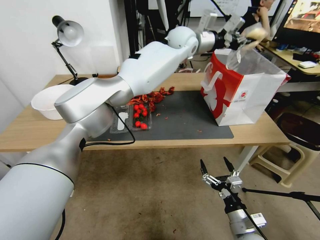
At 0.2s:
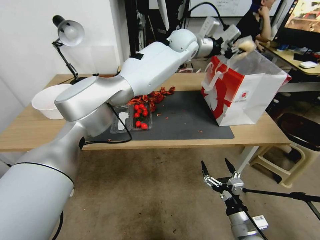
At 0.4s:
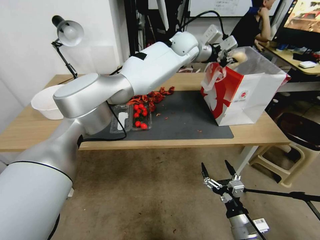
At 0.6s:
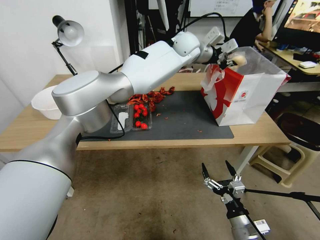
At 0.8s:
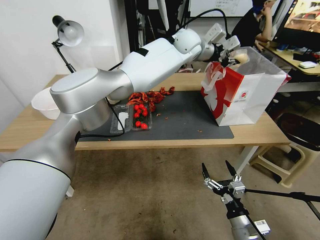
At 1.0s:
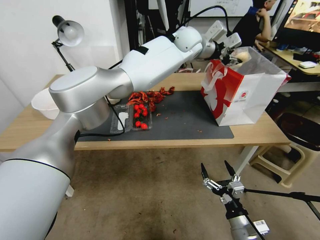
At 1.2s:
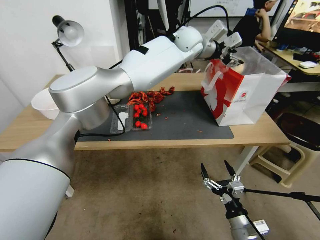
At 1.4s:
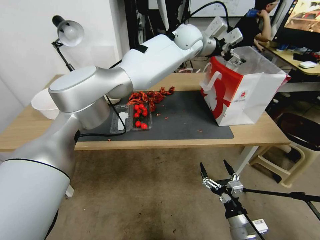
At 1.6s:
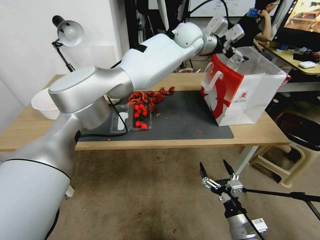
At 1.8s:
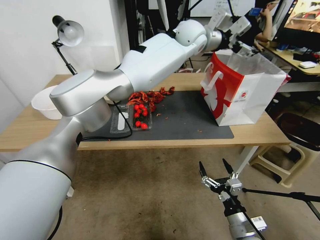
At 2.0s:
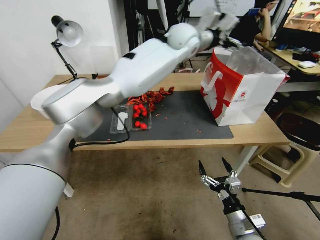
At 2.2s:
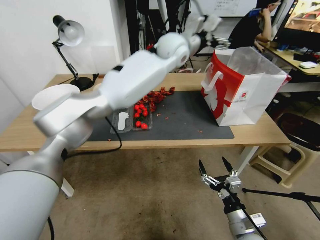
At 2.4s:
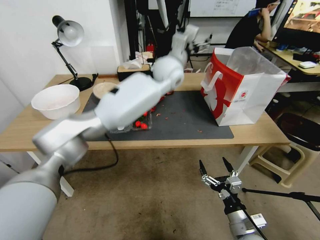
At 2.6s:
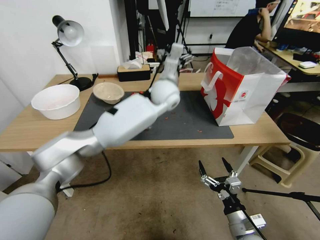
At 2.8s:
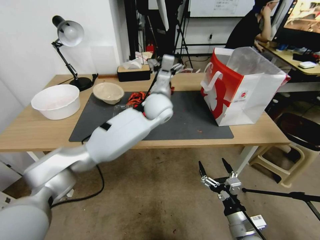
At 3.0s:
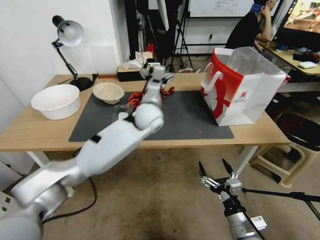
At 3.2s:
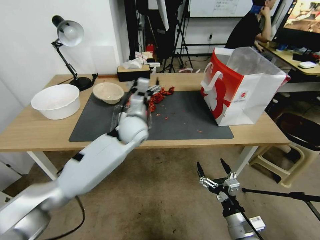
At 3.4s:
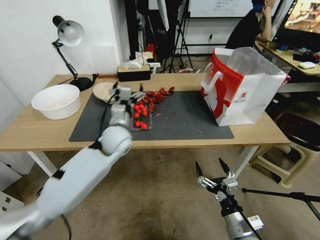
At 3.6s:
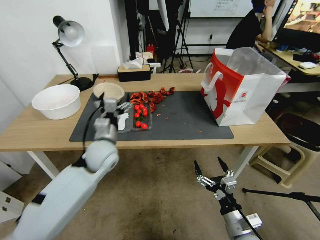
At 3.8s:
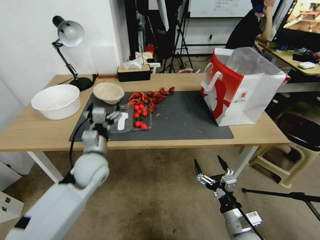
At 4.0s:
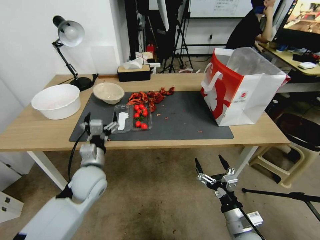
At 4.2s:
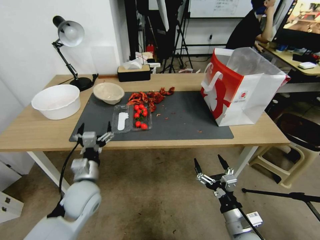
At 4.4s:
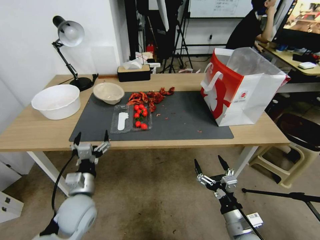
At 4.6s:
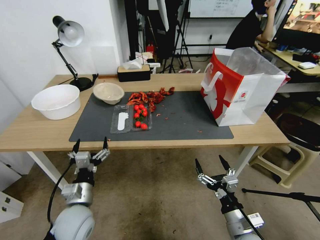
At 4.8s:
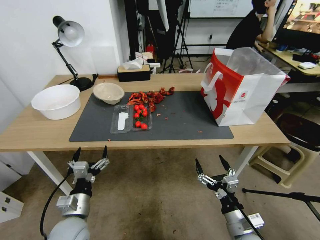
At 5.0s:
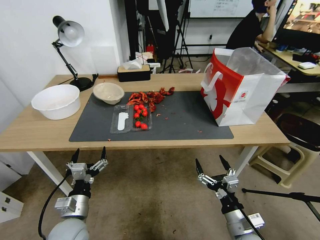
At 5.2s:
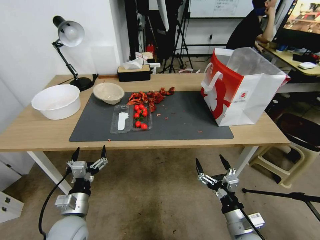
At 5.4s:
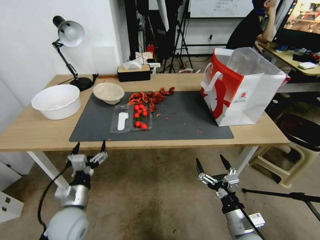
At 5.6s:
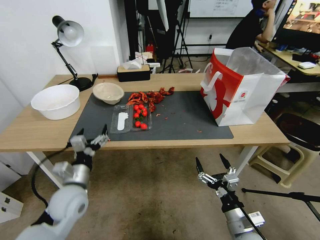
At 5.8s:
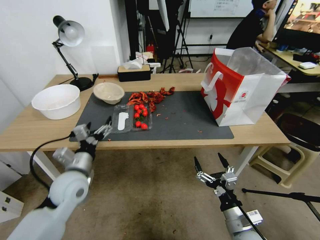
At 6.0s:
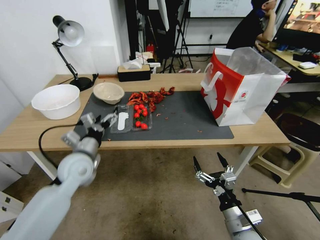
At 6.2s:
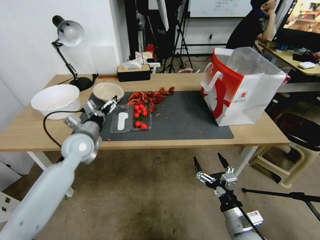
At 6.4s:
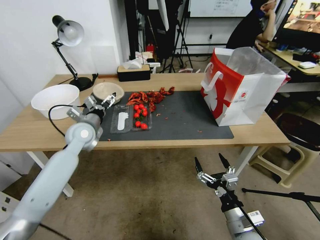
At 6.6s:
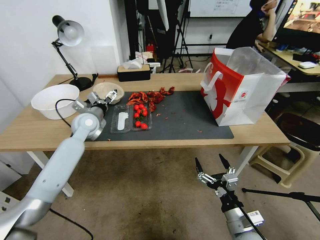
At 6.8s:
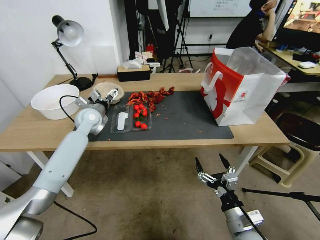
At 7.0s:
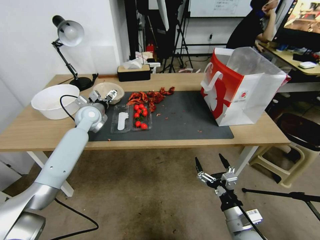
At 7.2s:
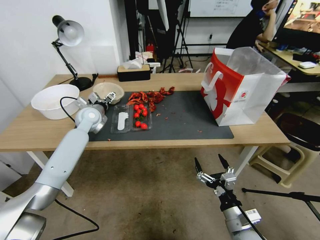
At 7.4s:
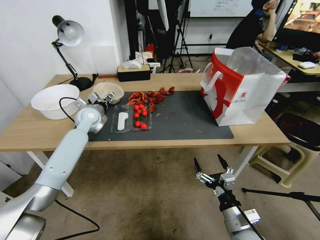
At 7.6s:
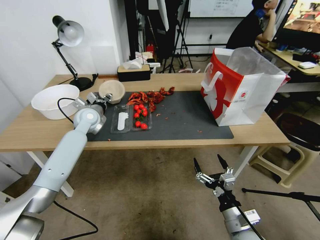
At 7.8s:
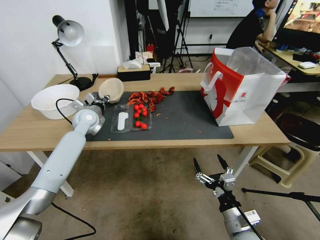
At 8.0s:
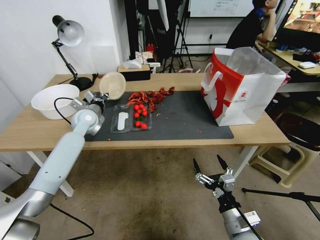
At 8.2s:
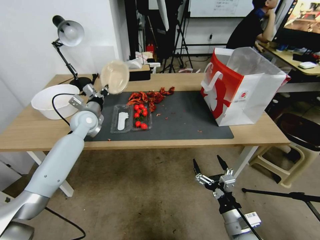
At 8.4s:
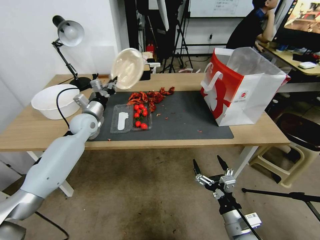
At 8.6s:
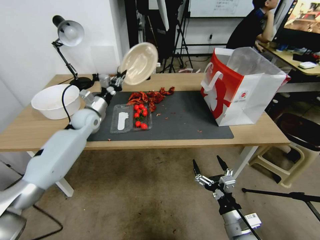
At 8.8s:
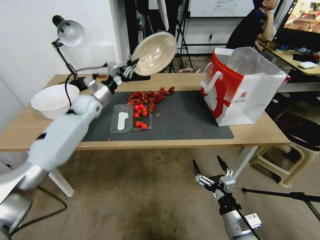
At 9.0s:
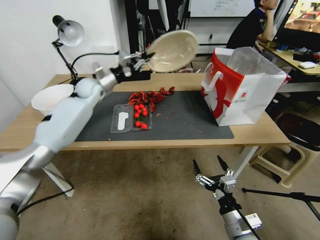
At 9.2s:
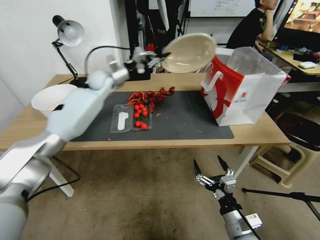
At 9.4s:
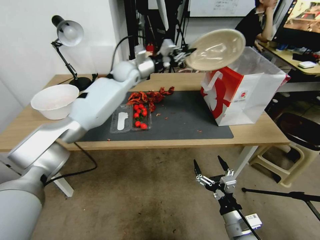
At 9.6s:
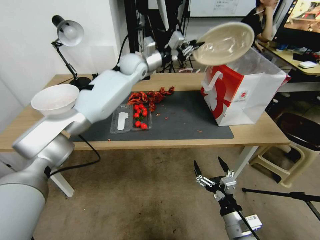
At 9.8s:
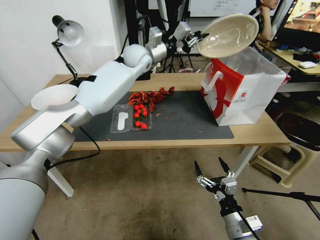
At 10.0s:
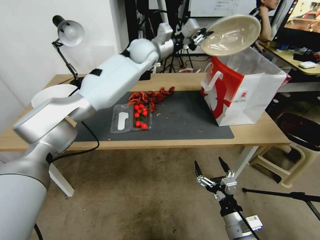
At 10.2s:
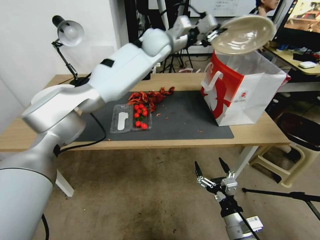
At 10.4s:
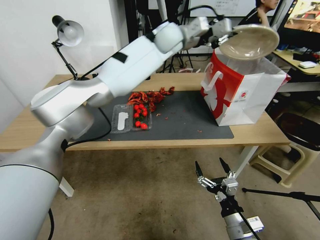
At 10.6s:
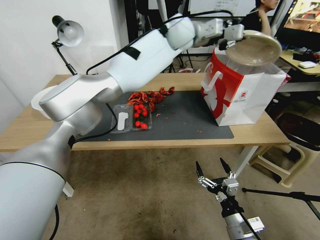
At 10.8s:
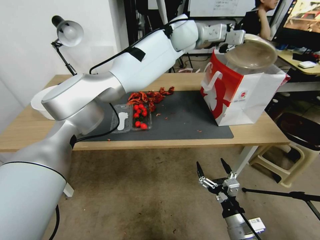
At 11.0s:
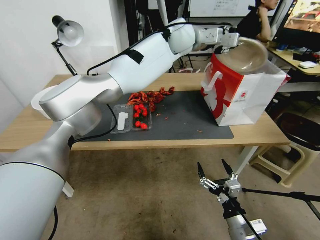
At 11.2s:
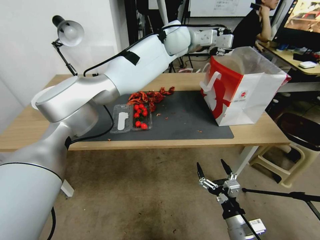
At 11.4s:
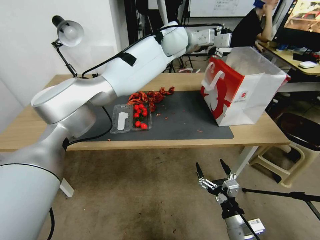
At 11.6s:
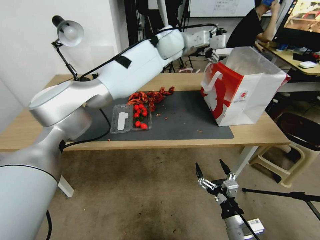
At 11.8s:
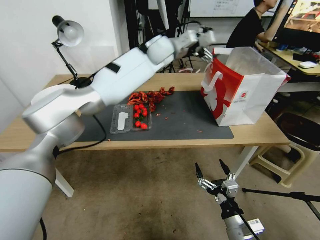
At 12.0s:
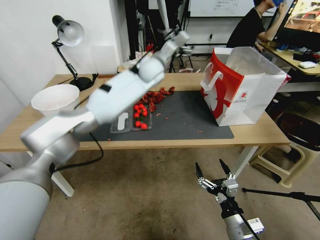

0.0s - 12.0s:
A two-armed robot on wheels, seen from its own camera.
0.0s - 1.6s: The left gripper heads to the right, covering roughly 5 cm, and opens up.
1.6s - 3.0s: The left gripper shifts approximately 25 cm downward, backward and to the left.
3.0s - 4.4s: The left gripper moves backward, to the left and downward, some 35 cm.
4.4s - 6.0s: The left gripper heads forward and upward, covering roughly 10 cm.
6.0s - 7.6s: The left gripper moves forward, about 20 cm, and closes up.
7.6s - 9.0s: The left gripper is displaced upward and forward by roughly 10 cm, and closes up.
9.0s - 10.4s: The left gripper shifts roughly 35 cm to the right and upward.
10.4s - 12.0s: The left gripper heads downward, covering roughly 5 cm, and opens.

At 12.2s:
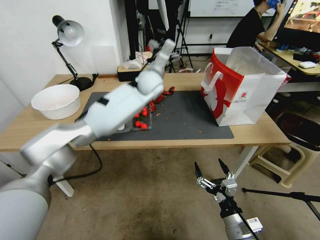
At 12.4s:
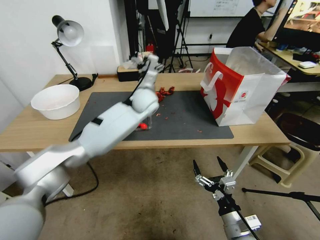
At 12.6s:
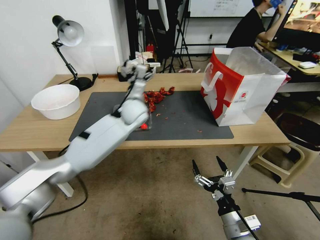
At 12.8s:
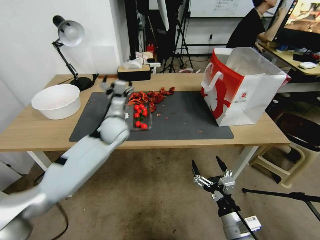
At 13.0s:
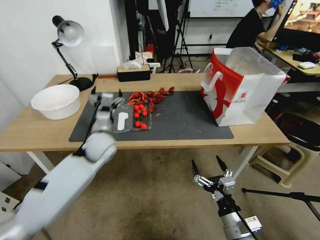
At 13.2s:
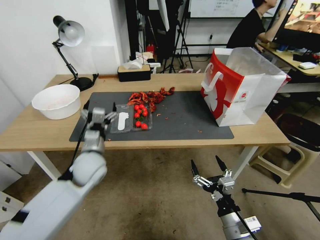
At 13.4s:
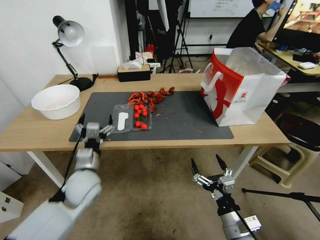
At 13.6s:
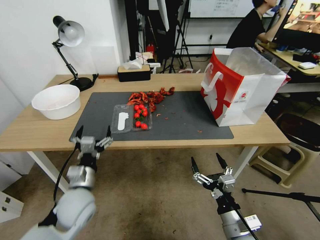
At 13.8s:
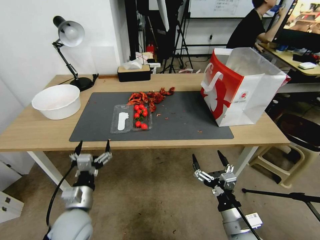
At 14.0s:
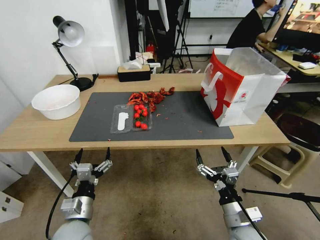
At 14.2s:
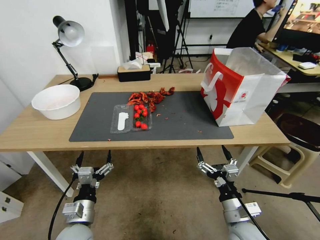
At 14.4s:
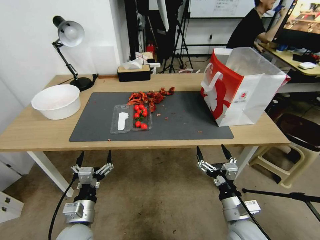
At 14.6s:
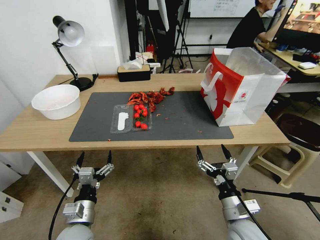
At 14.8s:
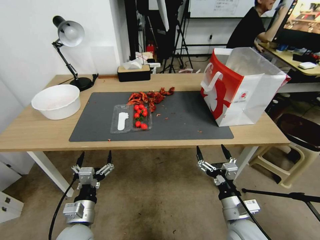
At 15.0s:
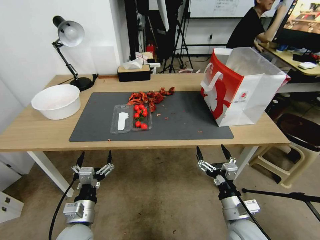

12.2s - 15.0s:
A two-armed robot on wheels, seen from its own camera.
12.2s - 13.6s: The left gripper moves backward, downward and to the left, some 50 cm.
13.6s - 15.0s: The left gripper heads backward and downward, covering roughly 10 cm.

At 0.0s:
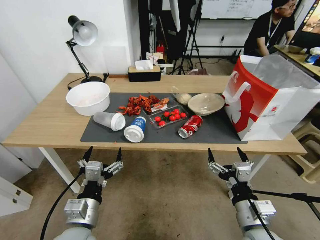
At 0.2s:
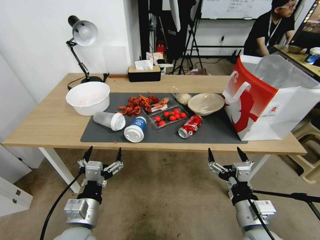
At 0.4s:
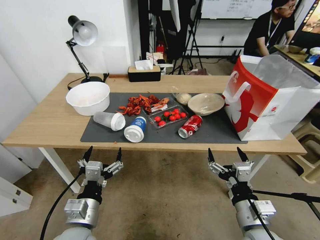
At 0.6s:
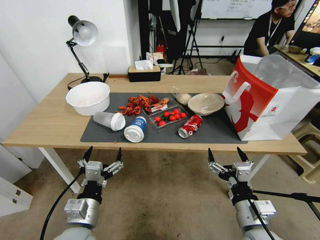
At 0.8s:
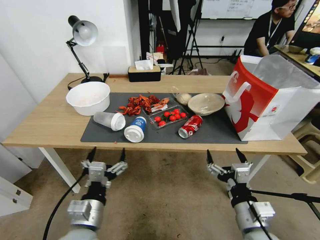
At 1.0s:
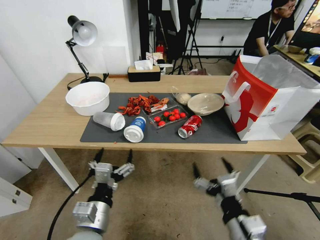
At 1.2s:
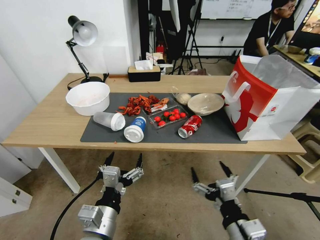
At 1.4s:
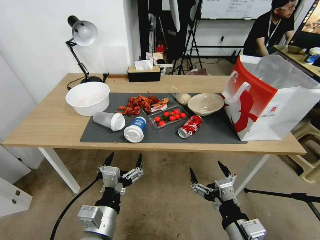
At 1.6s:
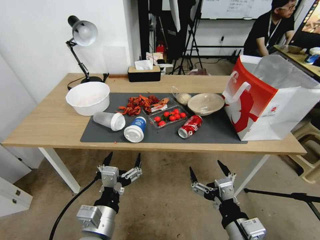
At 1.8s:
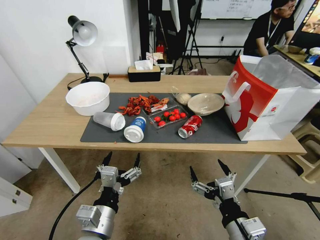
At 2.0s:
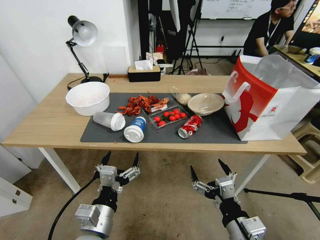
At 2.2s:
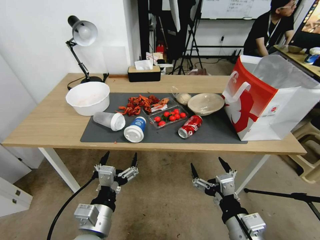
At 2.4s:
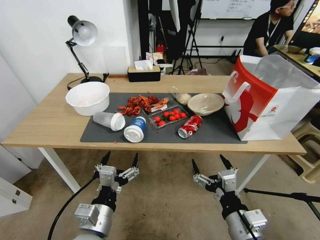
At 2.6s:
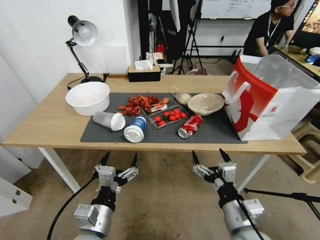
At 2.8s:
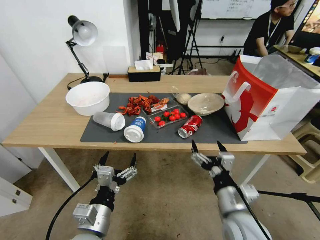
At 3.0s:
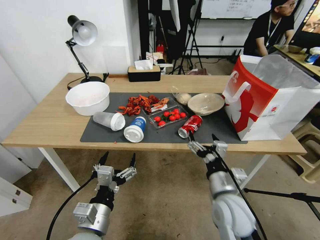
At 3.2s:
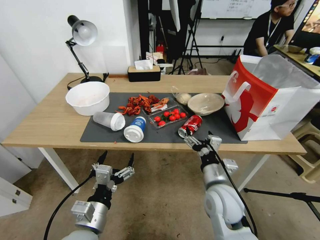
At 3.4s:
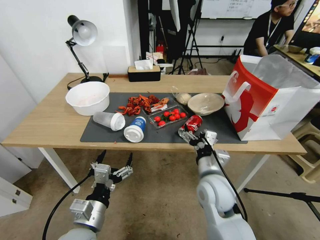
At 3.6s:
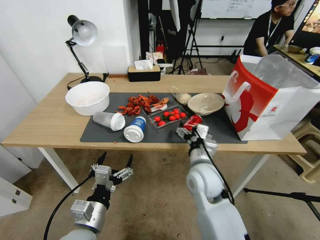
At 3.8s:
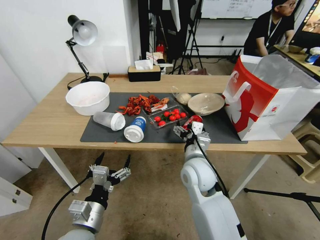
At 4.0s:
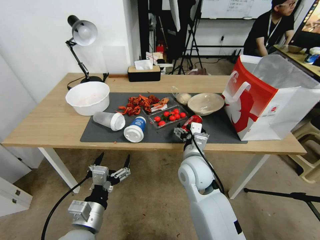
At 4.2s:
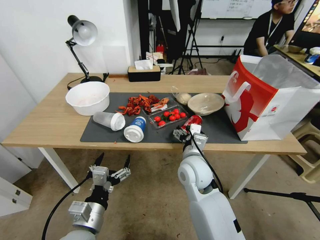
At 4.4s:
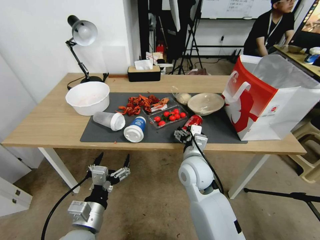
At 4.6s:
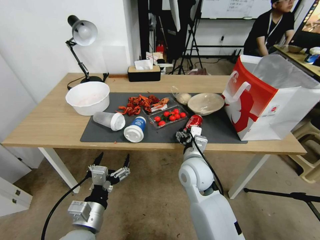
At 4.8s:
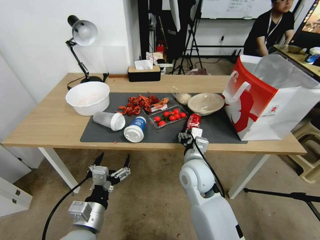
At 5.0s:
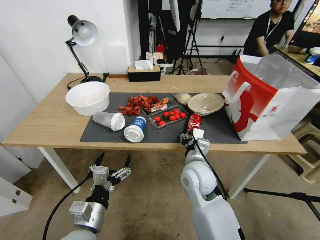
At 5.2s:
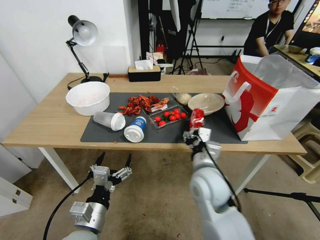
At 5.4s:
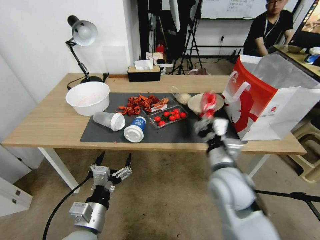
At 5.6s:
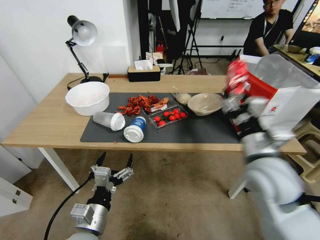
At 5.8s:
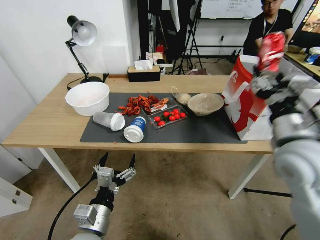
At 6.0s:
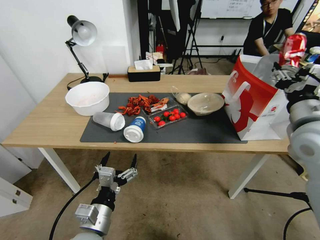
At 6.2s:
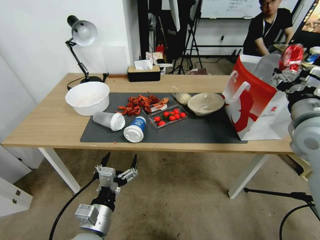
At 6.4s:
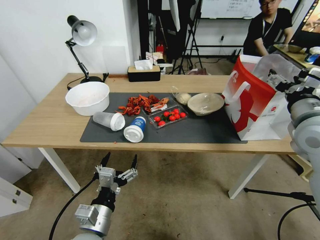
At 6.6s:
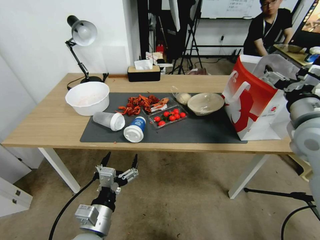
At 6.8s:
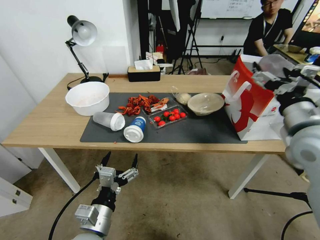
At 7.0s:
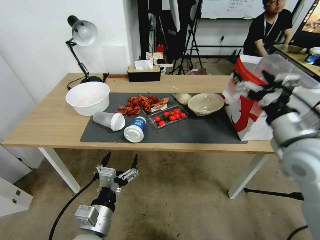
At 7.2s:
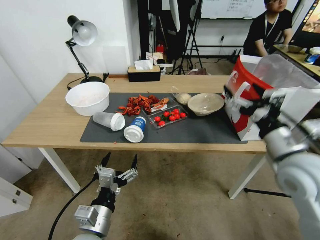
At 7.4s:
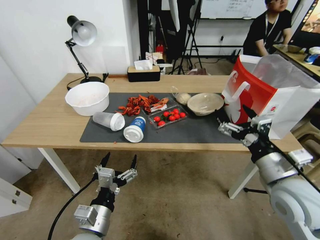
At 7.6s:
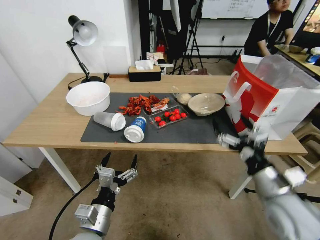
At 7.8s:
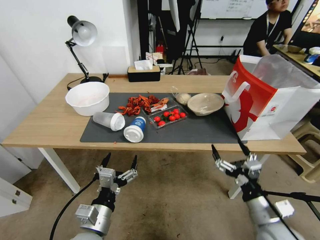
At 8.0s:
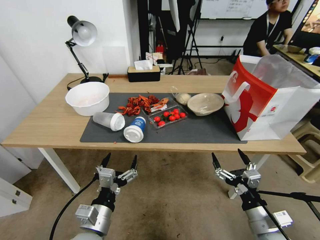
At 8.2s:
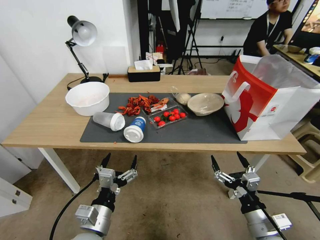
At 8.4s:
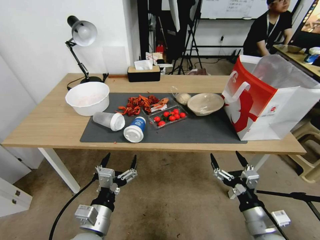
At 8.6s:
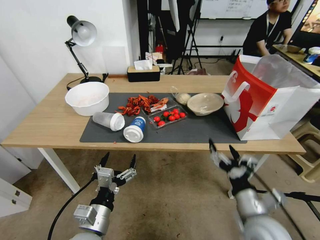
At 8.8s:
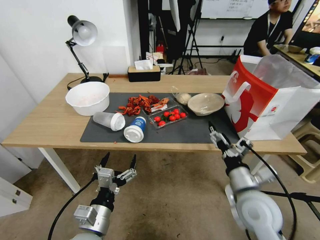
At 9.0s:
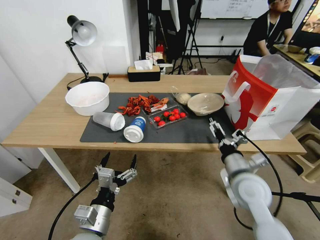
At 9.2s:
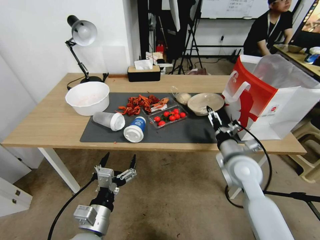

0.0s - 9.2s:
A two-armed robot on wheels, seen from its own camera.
1.6s - 3.0s: There are only small adjustments of the grippers.
3.0s - 4.6s: The right gripper shifts about 20 cm forward and to the left.
4.6s - 6.2s: The right gripper moves to the right and upward, approximately 30 cm.
6.2s - 7.6s: The right gripper heads downward and backward, covering approximately 15 cm, and opens.
7.6s - 9.2s: The right gripper is displaced forward, downward and to the left by about 15 cm.
